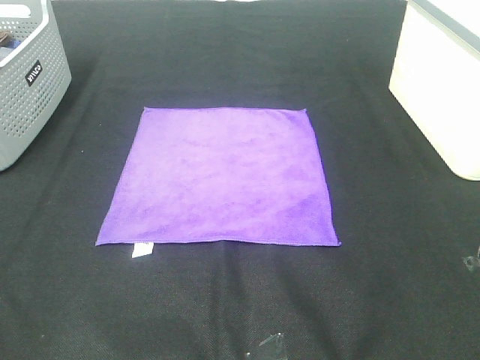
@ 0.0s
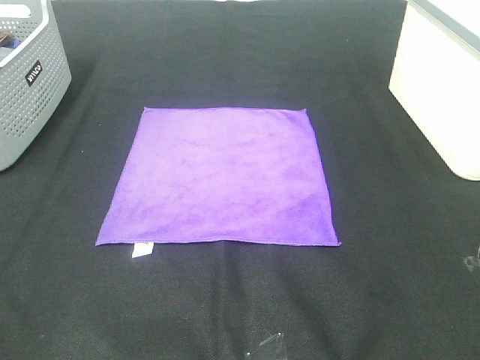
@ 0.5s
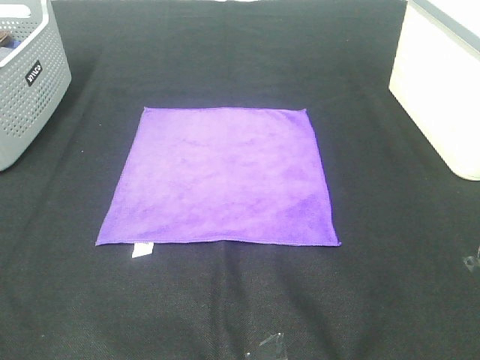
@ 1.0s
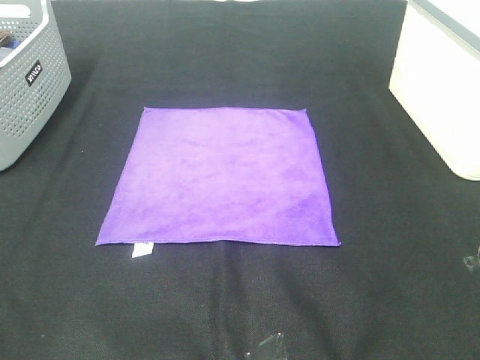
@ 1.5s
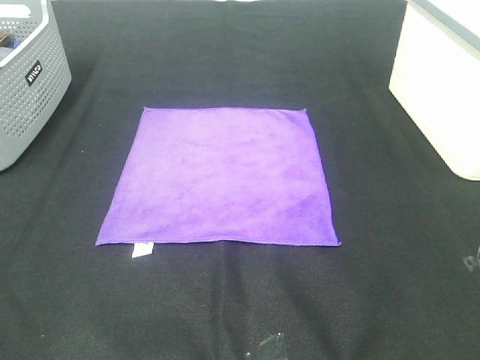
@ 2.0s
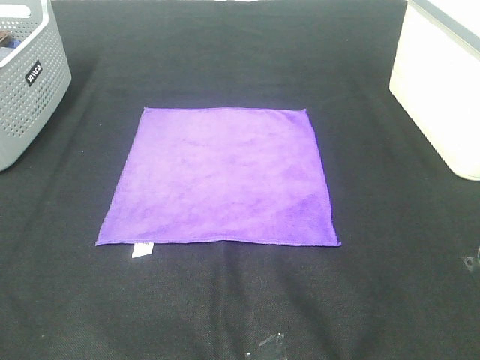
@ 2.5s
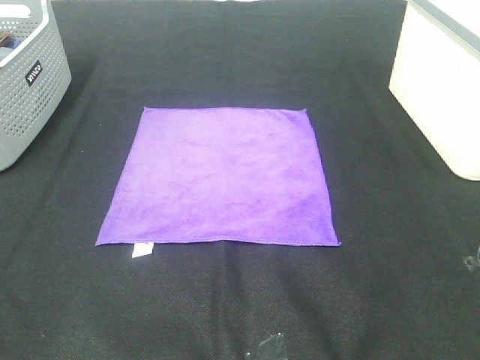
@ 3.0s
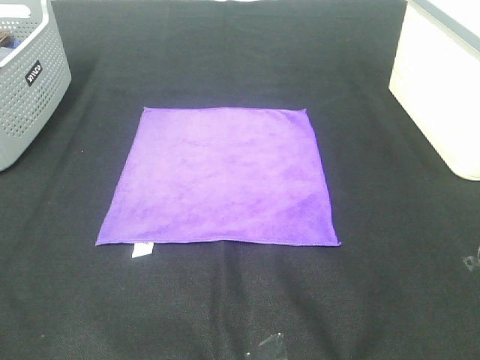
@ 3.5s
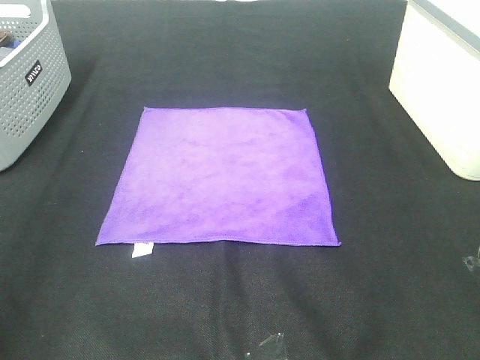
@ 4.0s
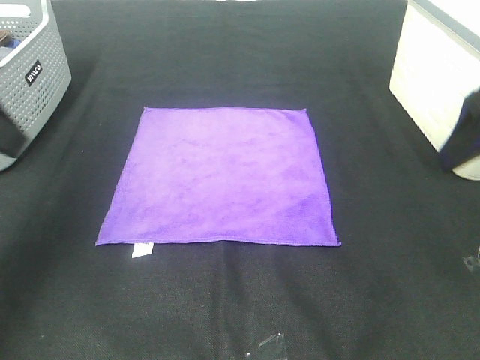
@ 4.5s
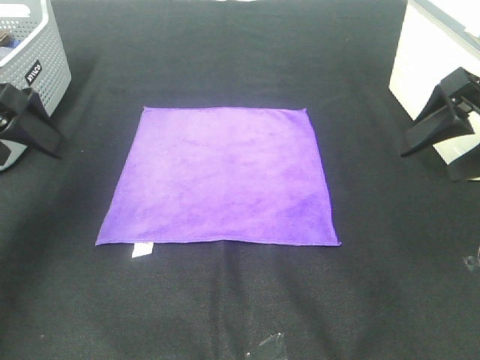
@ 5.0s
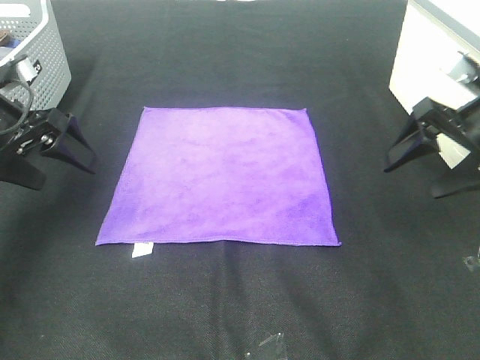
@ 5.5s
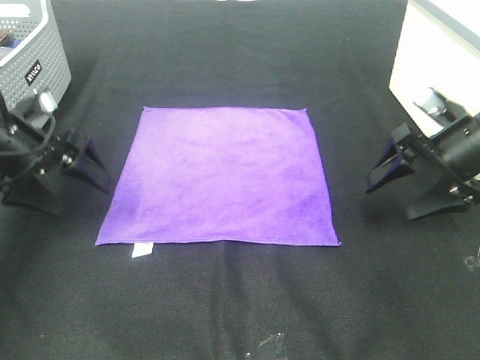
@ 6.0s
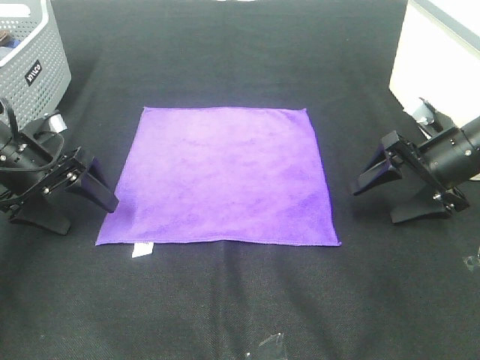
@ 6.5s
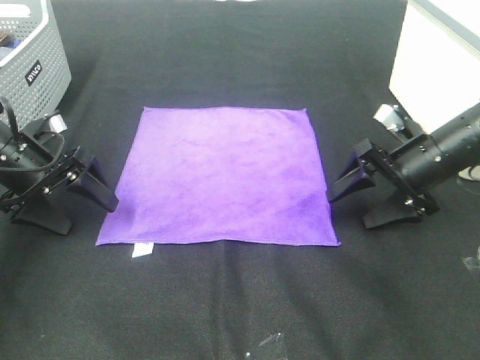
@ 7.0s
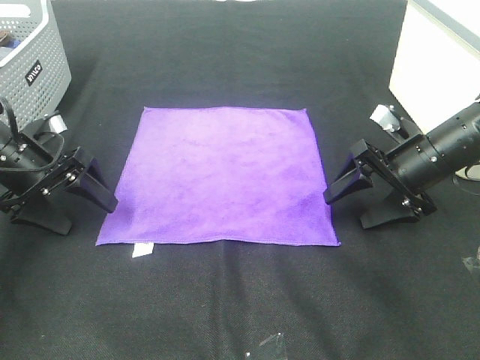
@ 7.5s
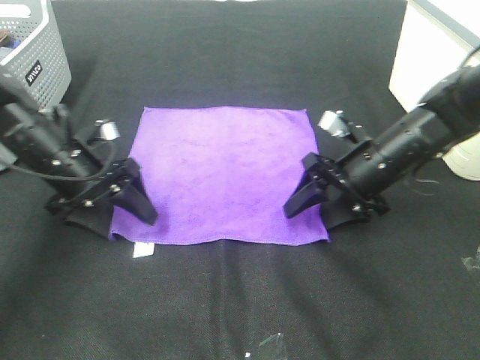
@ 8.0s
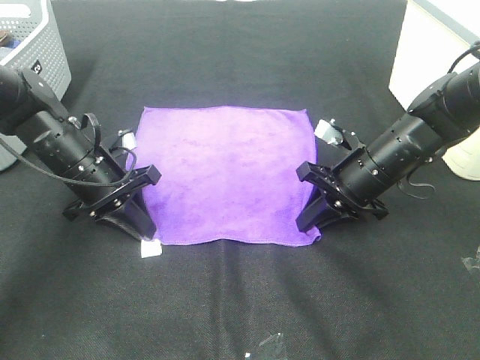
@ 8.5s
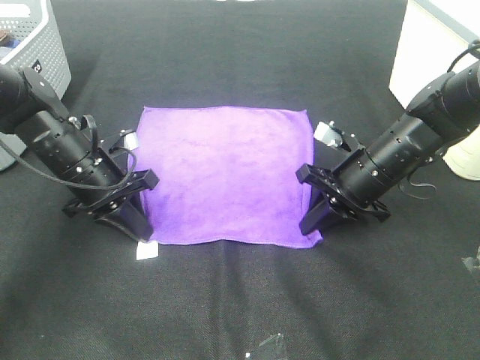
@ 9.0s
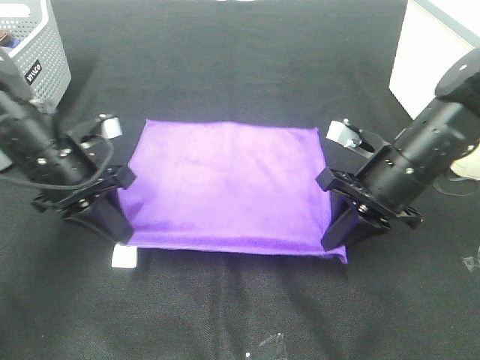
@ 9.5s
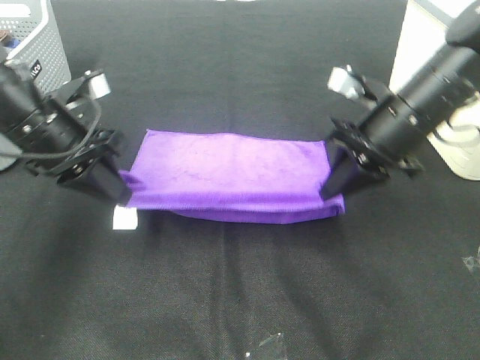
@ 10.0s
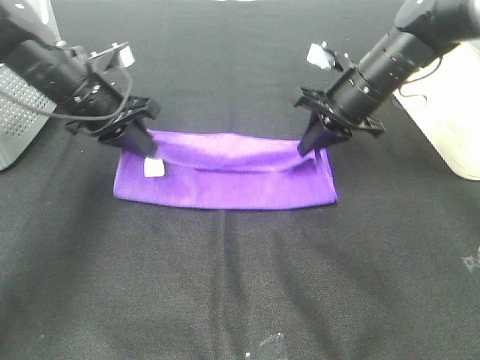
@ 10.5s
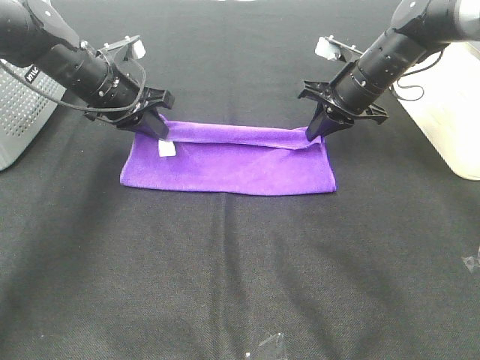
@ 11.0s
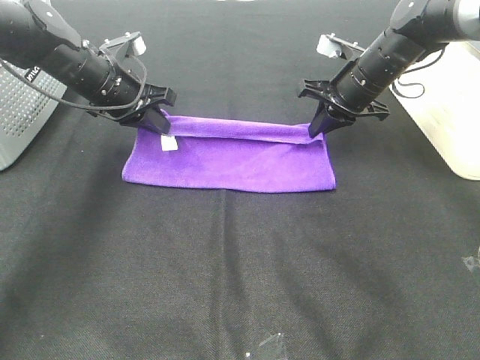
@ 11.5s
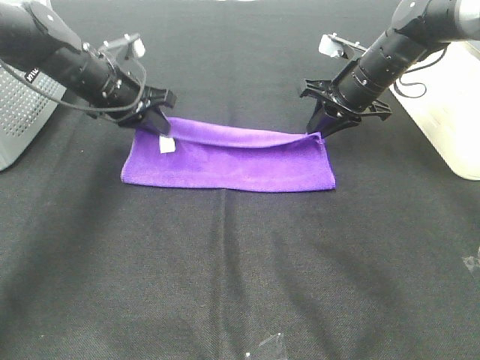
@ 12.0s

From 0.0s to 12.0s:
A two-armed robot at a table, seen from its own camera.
Task of the whole recording: Fold towels.
Step, from 0.0s to 8.5s: Left hand: grab the bottom left corner of purple towel.
Step, from 0.0s to 8.5s: Right hand: grab the bottom right corner of purple towel.
Step, from 9.0s to 11.5s: Left hand: fold the purple towel up.
Step, from 9.0s to 11.5s: Right hand: fold the purple towel up.
From 0.0s to 2.0s: Both grippers stay about where they are.
From 4.0s to 6.0s: Both grippers travel together forward and downward, approximately 30 cm.
From 6.0s to 8.0s: The left gripper shifts roughly 5 cm to the right. Meanwhile the right gripper is displaced to the left and downward by about 10 cm.
From 8.0s to 10.0s: The two grippers go roughly 10 cm upward. The right gripper closes its fingers. Meanwhile the left gripper closes its fingers.
From 10.0s to 12.0s: Both grippers move forward, some 15 cm.

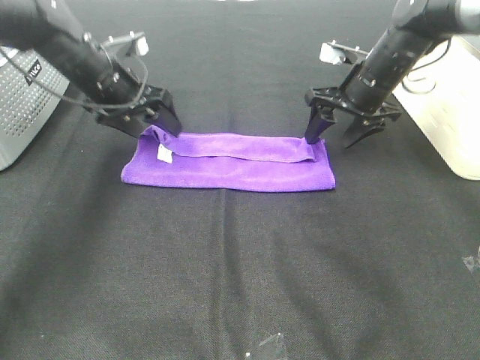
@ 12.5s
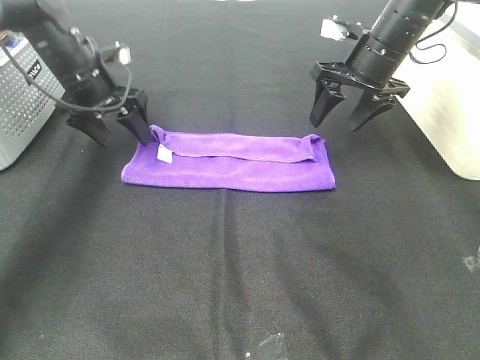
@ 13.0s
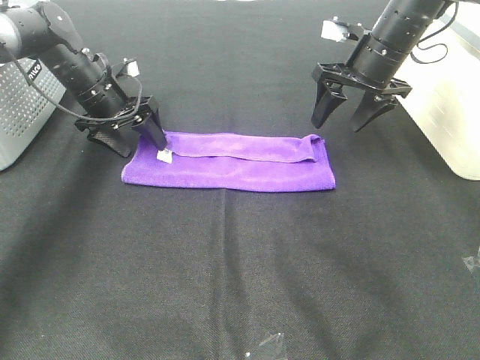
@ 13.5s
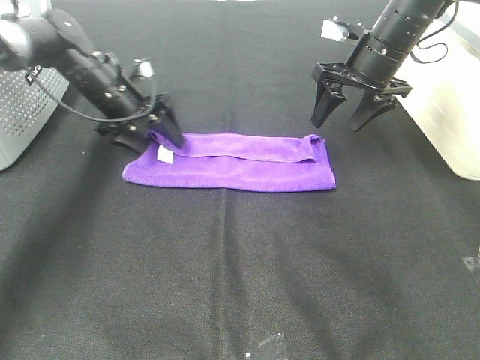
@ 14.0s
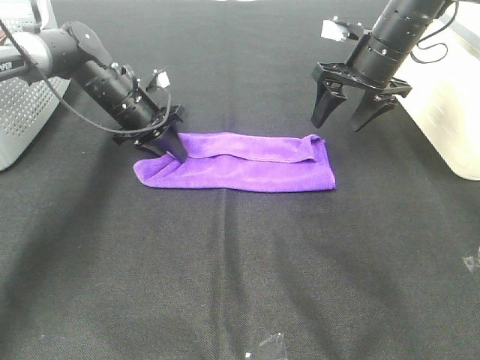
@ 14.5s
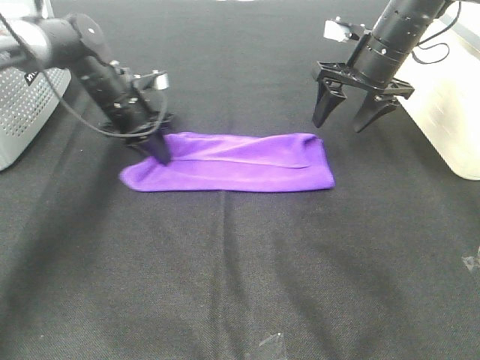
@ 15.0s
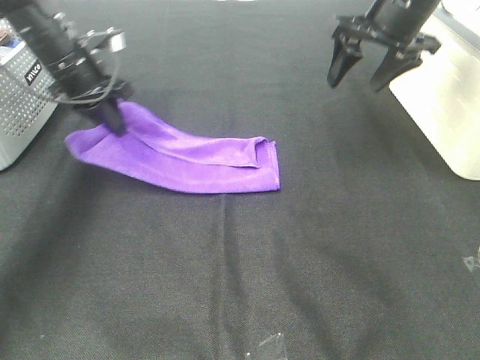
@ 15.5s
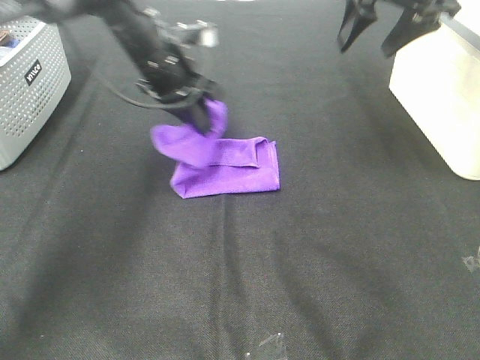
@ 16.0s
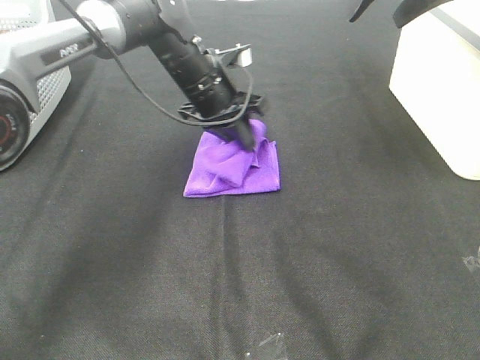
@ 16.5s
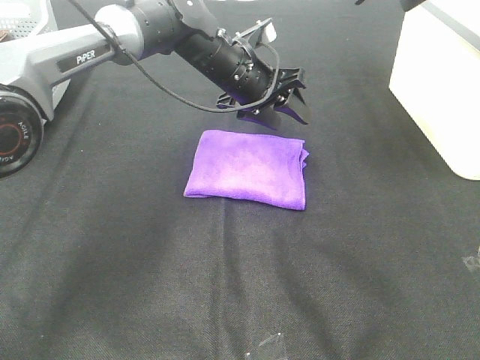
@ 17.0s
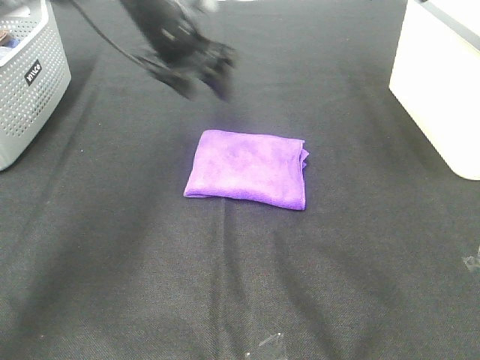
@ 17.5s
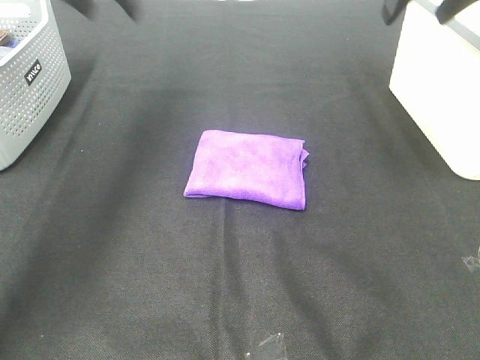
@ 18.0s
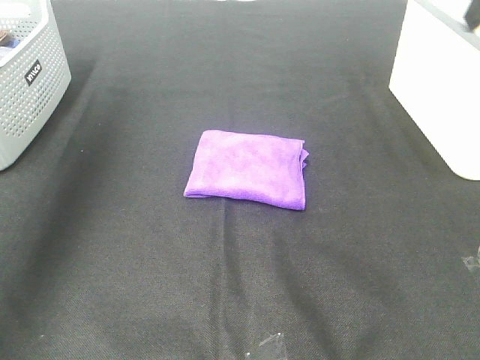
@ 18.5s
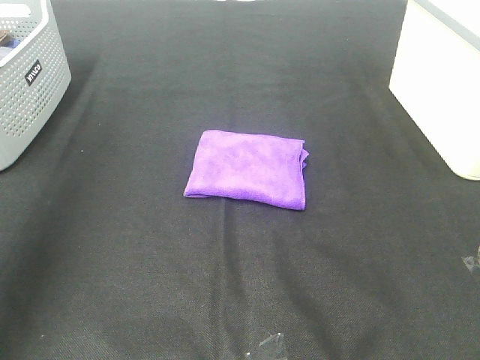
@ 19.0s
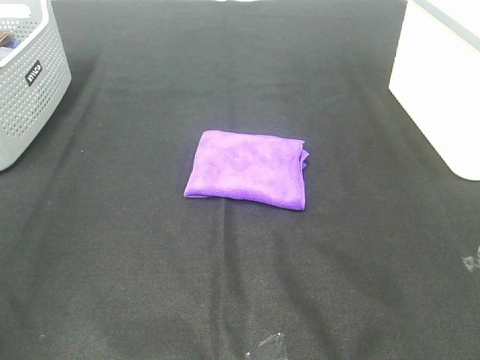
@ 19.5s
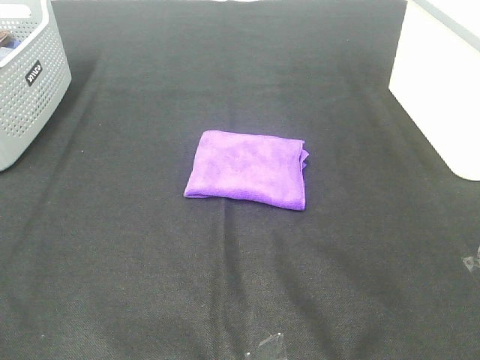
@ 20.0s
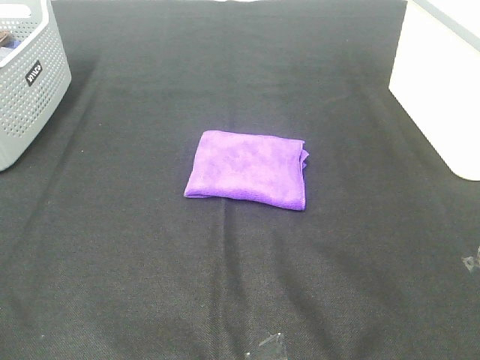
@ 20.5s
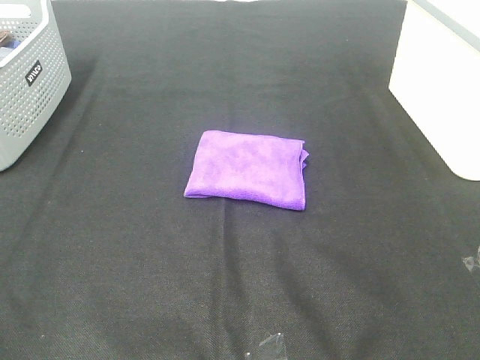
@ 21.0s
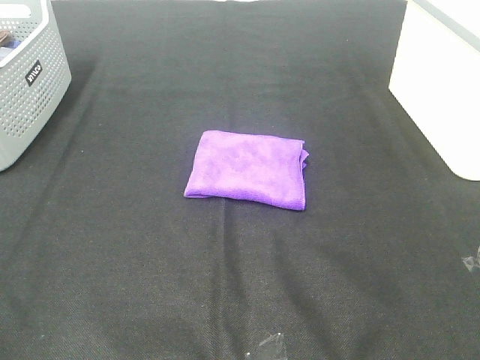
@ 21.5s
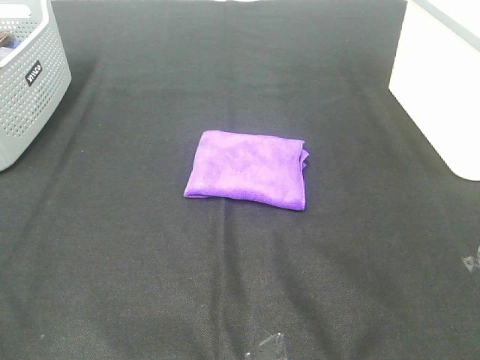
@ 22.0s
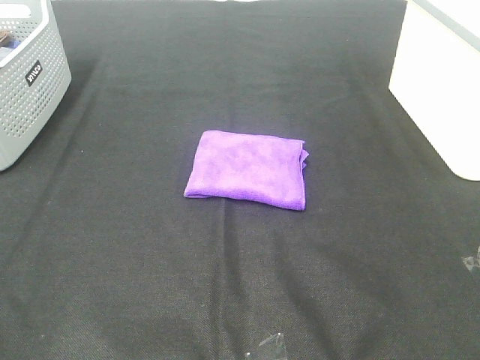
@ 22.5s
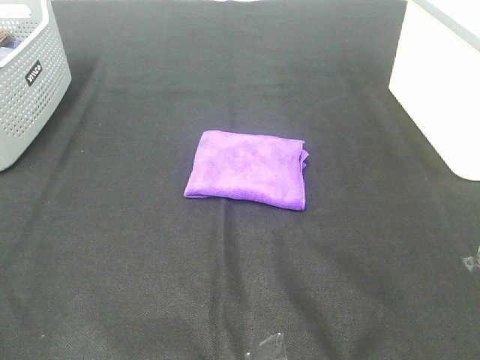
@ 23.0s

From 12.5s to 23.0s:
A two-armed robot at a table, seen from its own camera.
Task of the whole recording: Fold towels.
Step, from 12.5s to 16.5s: Left hand: fold the purple towel from left to right.
From 12.5s to 14.5s: The left gripper is displaced downward by roughly 10 cm, and closes its fingers.
From 14.5s to 16.5s: The left gripper heads to the right and upward, covering roughly 15 cm; the right gripper moves upward, approximately 15 cm.
From 16.5s to 19.0s: The right gripper moves backward, approximately 30 cm; the left gripper is displaced backward, to the left and upward by approximately 40 cm, and opens.
From 19.0s to 21.0s: The left gripper heads backward and downward, covering roughly 20 cm.

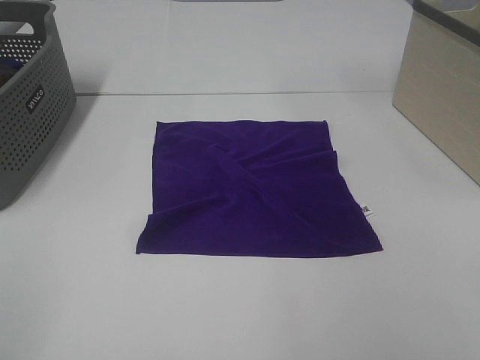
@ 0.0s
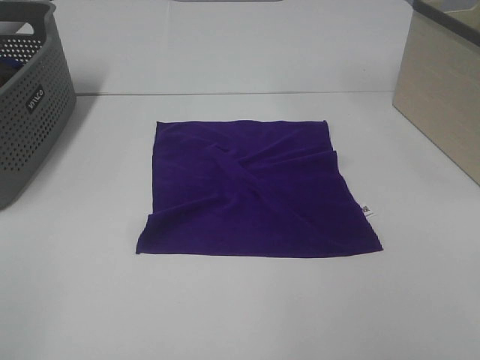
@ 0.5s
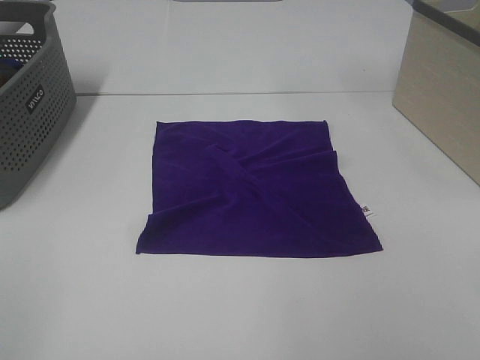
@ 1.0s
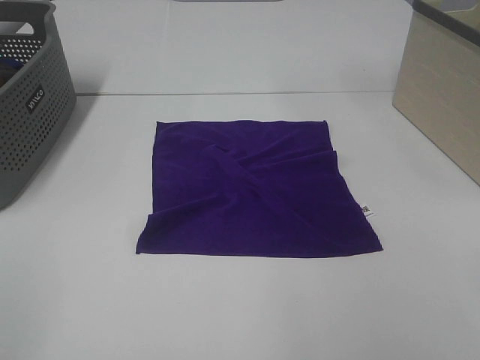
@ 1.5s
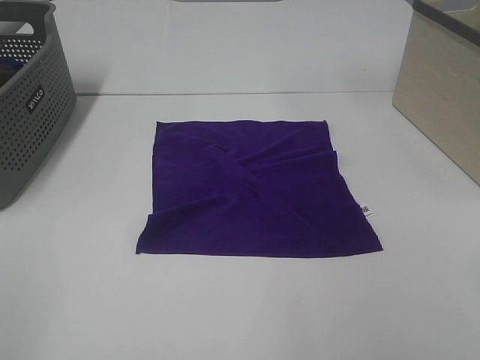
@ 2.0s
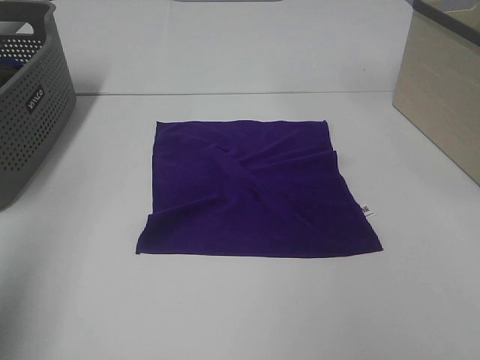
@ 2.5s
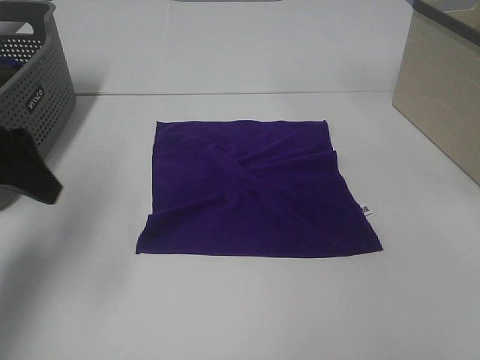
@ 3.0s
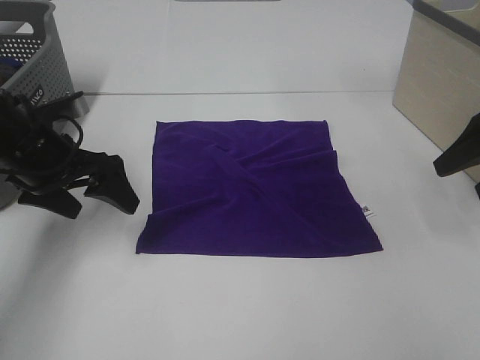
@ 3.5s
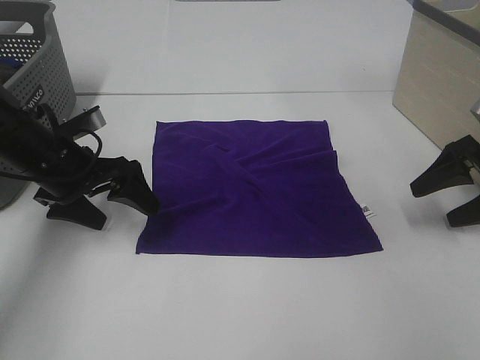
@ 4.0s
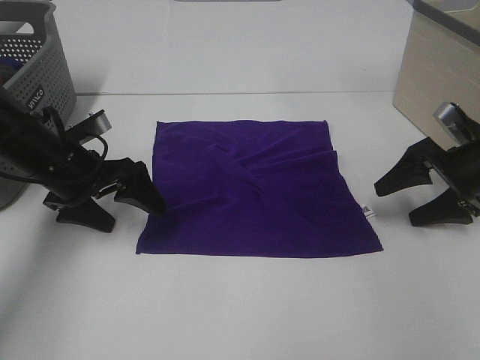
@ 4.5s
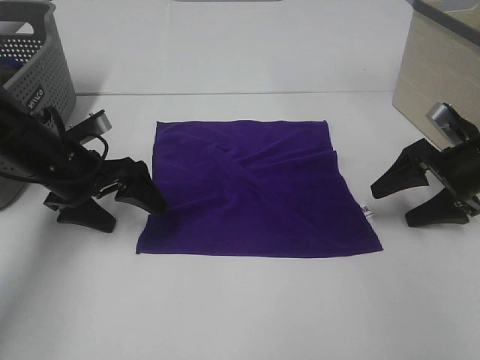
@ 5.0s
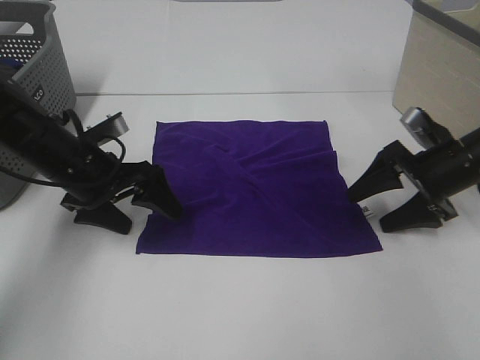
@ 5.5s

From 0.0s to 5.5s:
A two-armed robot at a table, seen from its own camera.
Task of the whole recording: Fold towels.
From 0.0s to 2.0s: Both grippers stay put.
From 2.0s to 3.5s: The left gripper moves forward and downward, about 35 cm. The right gripper heads forward, covering roughly 30 cm.
From 3.5s to 5.5s: The right gripper goes some 15 cm downward and to the left. Meanwhile the left gripper changes place by some 5 cm.
